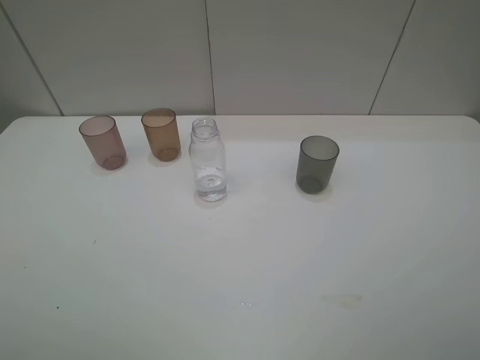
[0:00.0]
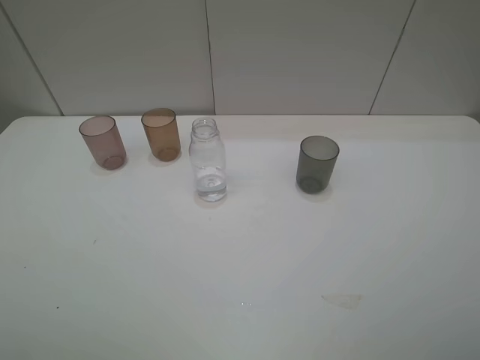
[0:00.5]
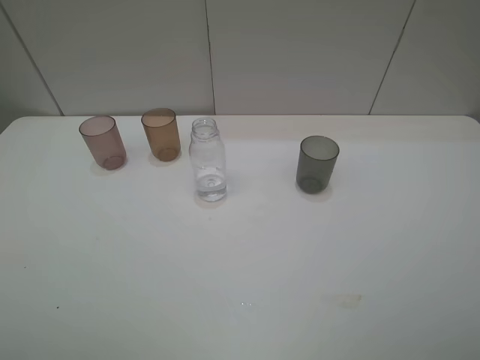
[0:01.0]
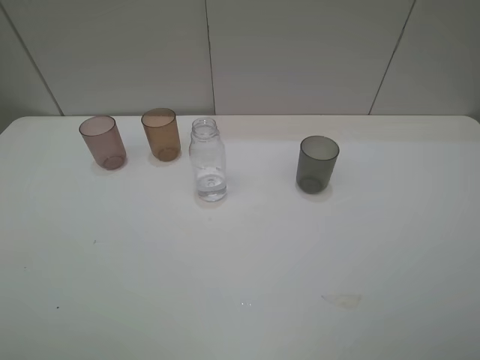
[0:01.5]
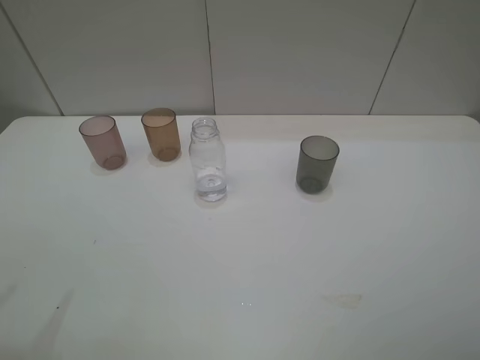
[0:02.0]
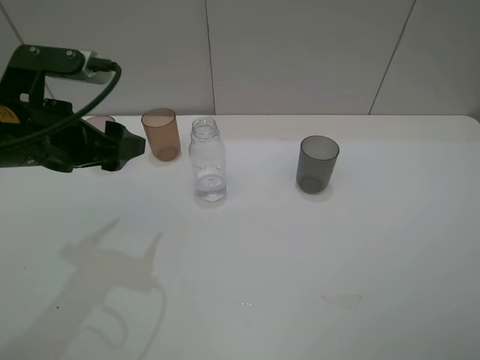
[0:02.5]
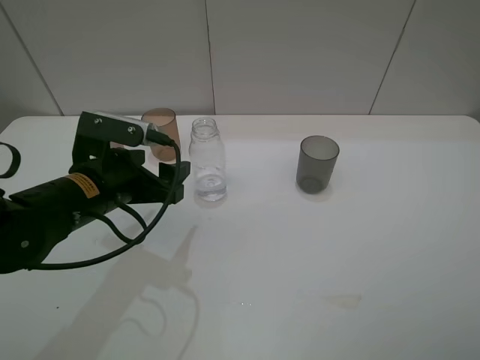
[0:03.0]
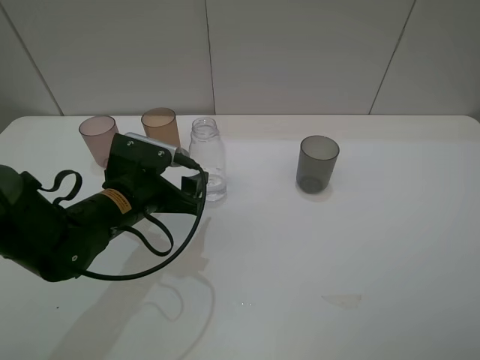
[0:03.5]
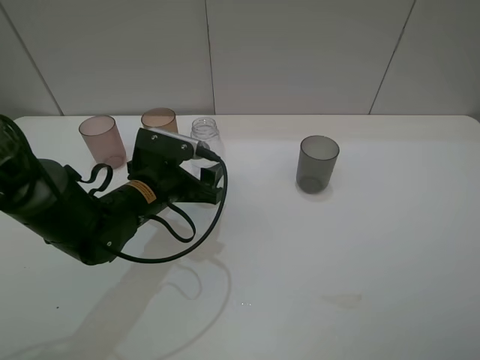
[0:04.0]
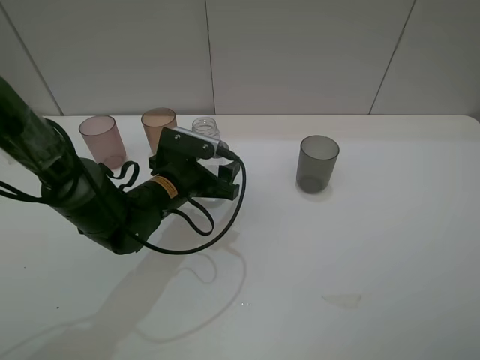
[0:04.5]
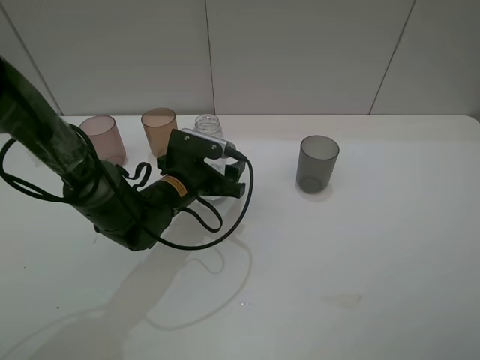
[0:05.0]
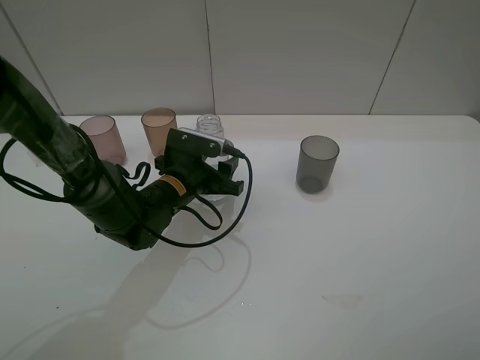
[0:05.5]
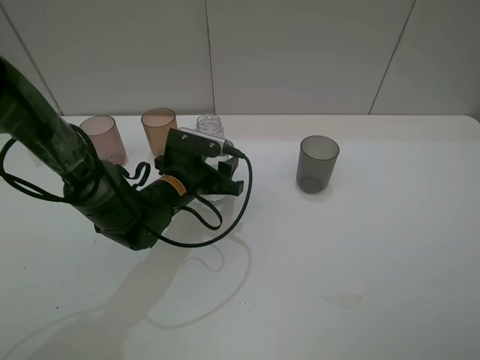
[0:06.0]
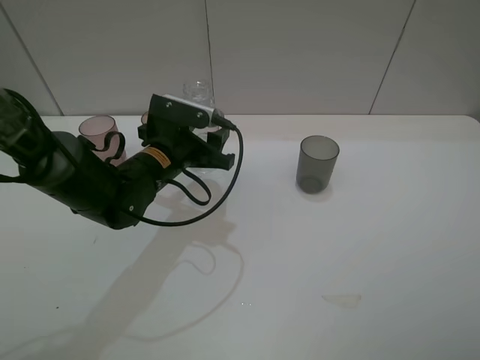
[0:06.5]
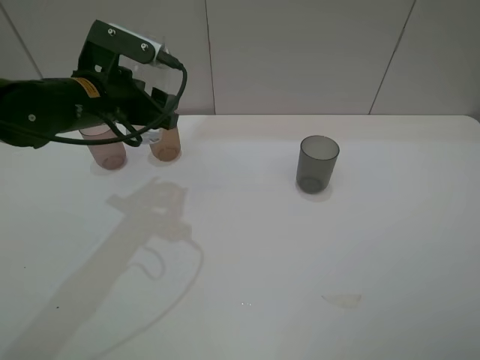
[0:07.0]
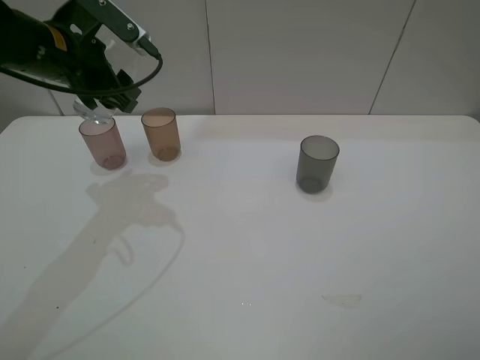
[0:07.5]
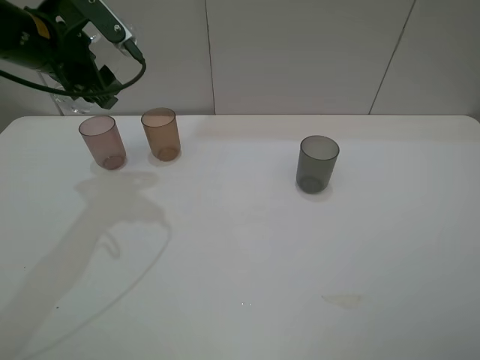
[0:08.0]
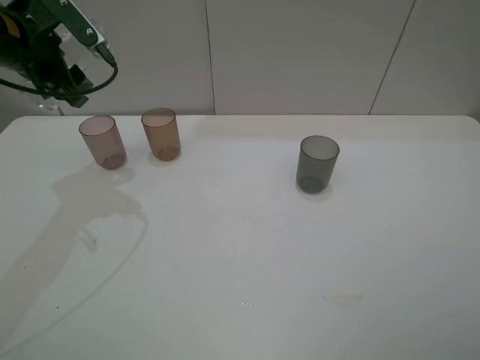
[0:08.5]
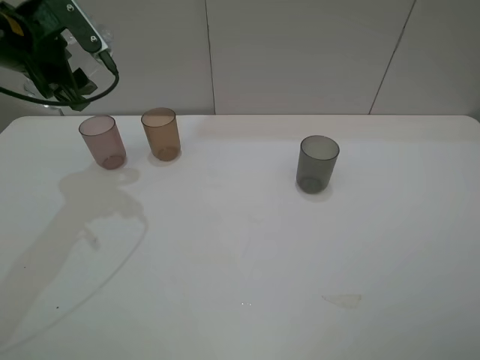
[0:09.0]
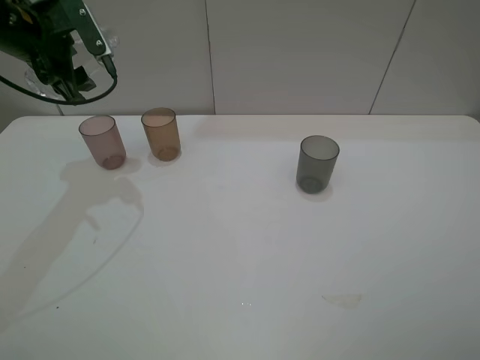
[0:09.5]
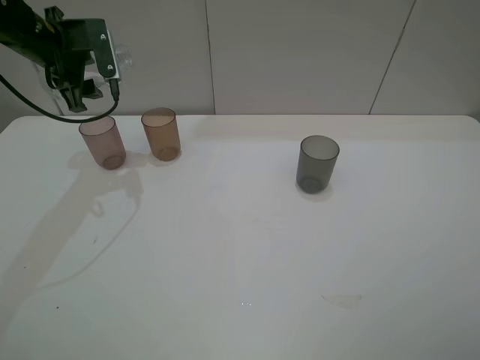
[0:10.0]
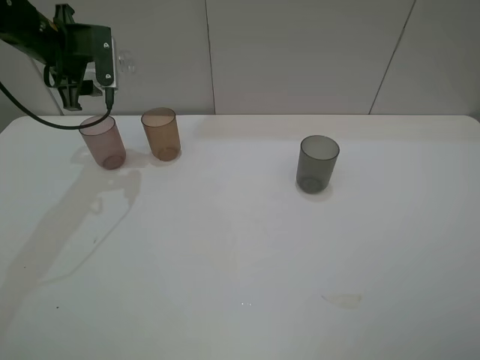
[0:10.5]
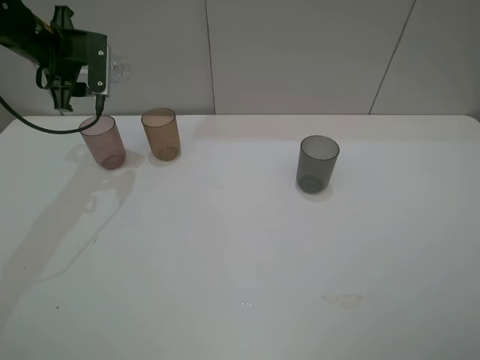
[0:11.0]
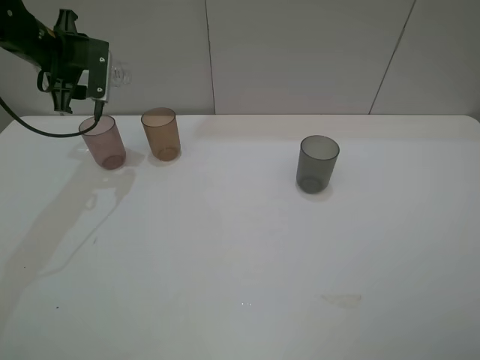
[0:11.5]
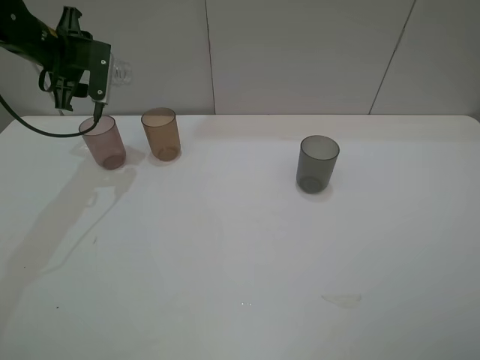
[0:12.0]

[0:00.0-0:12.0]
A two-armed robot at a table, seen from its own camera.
Task of the whole recording: pick up the bottle filled with water and pour water into the middle cup of the three cups.
Step, 0:00.0 to 0:05.0: Grasp the transparent bottle with the left gripper.
Step, 0:05.5 to 0:10.0: Pour water from transparent bottle to brown cup with the left gripper.
0:02.0 to 0:04.0: The left gripper is displaced downward, to the right and forward by some 30 cm.
0:04.0 to 0:06.0: The left gripper changes place by roughly 5 cm, and closes its fingers.
0:06.0 to 0:08.0: The left gripper goes roughly 25 cm upward and to the left.
0:08.0 to 0:10.0: The left gripper shifts roughly 5 cm forward.

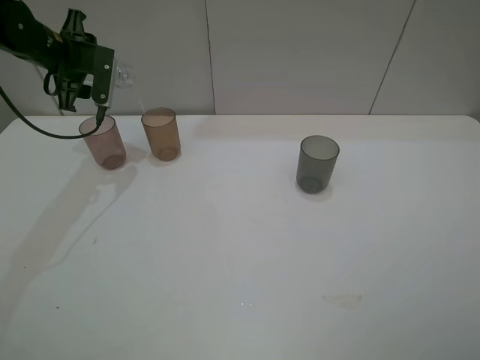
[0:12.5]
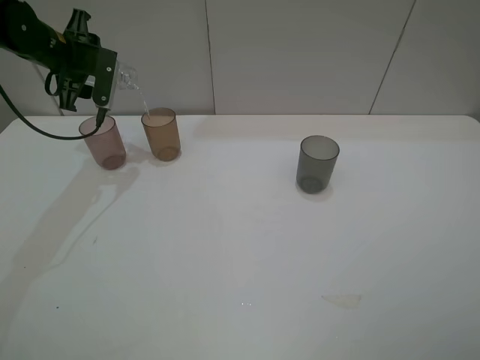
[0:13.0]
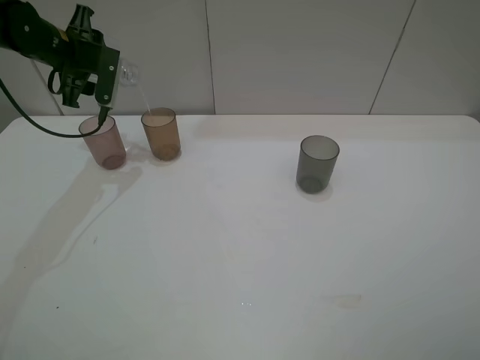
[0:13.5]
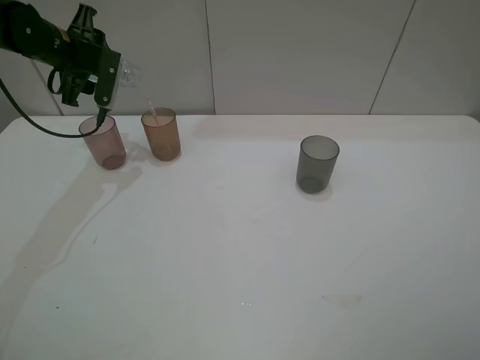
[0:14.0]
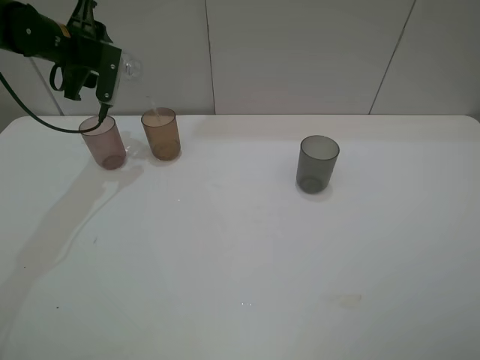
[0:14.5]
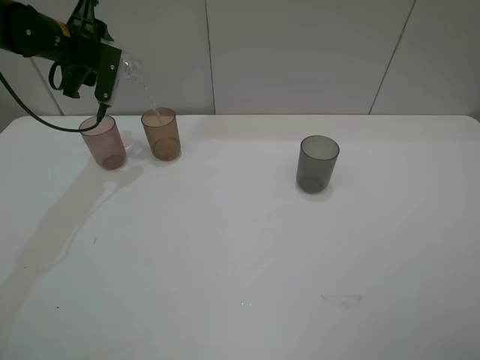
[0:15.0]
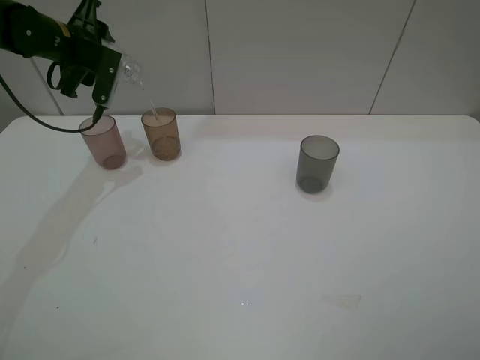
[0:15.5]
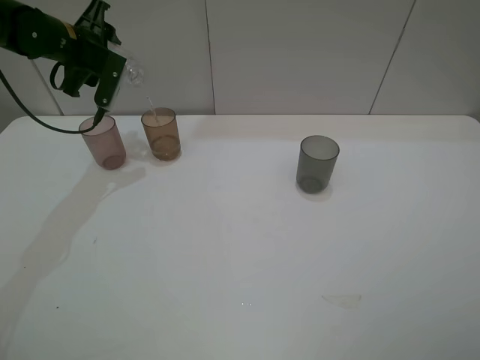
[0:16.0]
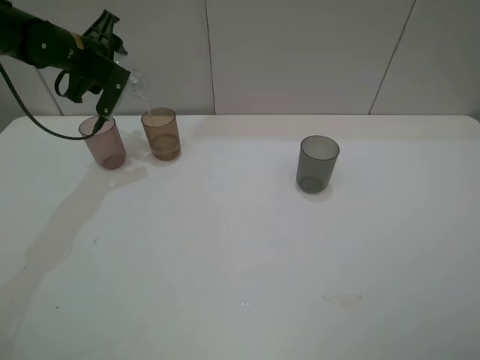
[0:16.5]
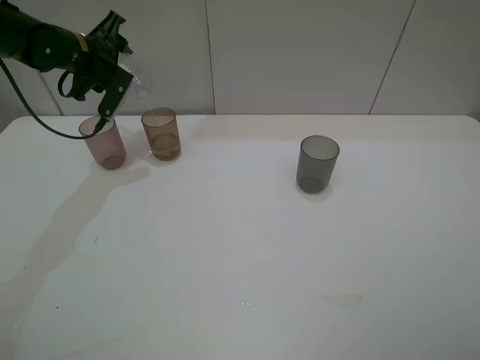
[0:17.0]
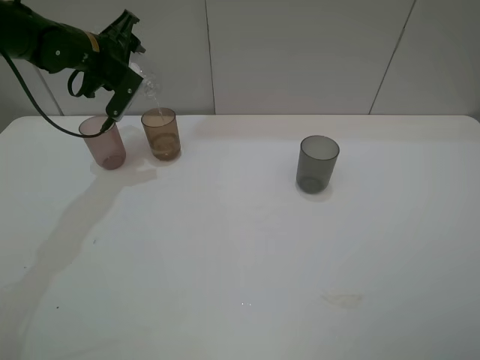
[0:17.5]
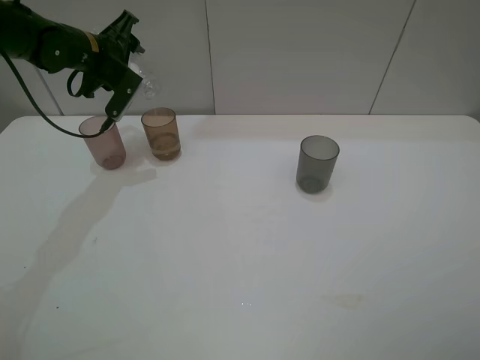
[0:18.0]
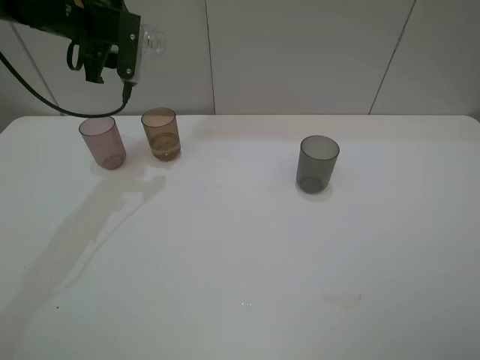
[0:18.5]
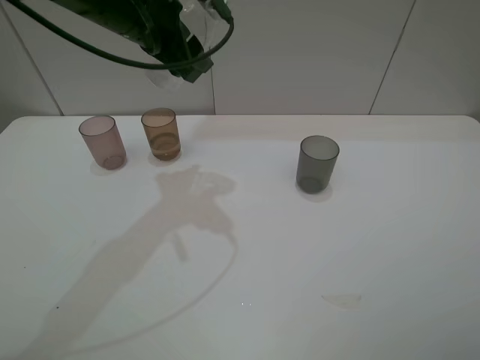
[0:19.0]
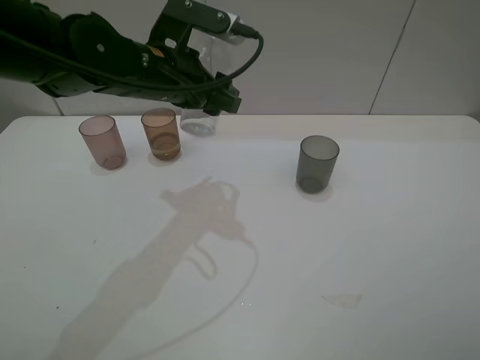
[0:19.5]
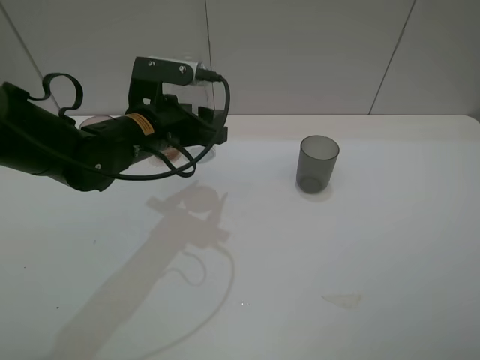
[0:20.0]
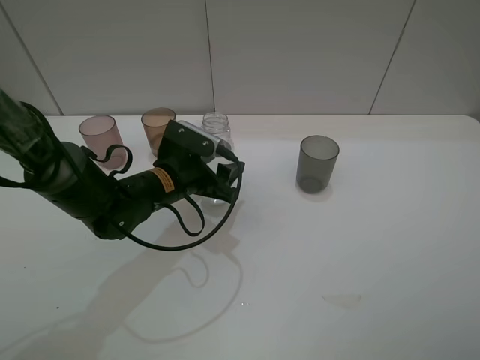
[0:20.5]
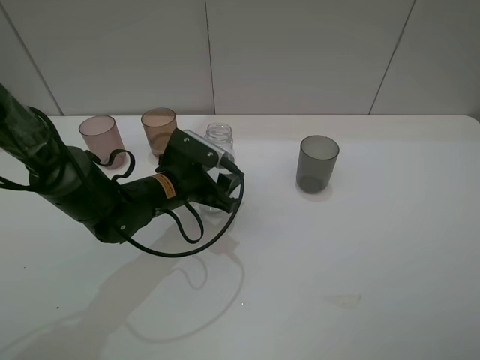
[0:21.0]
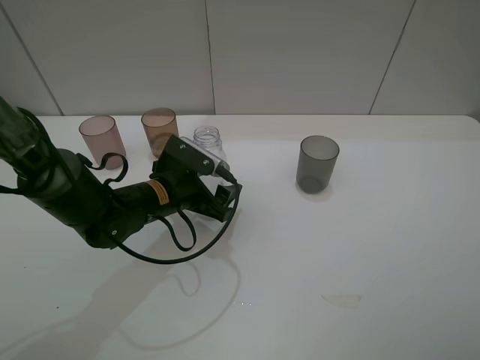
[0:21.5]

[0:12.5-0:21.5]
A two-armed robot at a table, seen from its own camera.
Task of the whole recording: pick up the bottle filled with water and pour water into the middle cup of the three cups.
0:12.5 to 0:14.5: The grippers move only a little.
0:14.5 to 0:17.0: There are only small adjustments of the grippers.
0:17.0 to 0:19.5: The left gripper travels to the right and backward by roughly 20 cm.
0:19.5 to 0:21.5: The left gripper is displaced downward by roughly 15 cm, and opens its fingers.

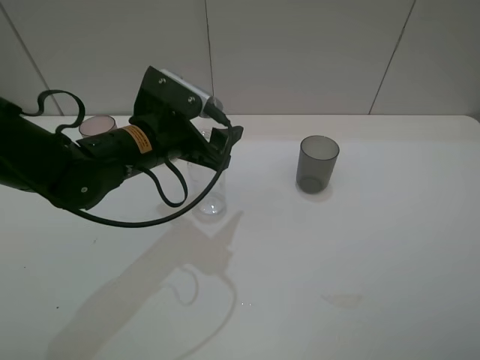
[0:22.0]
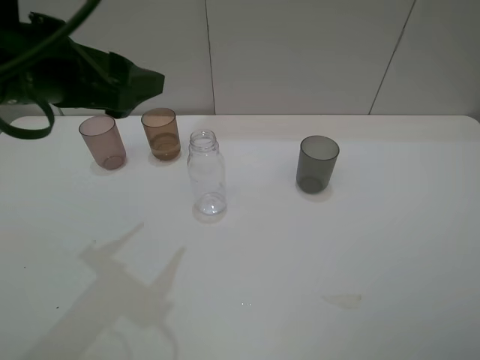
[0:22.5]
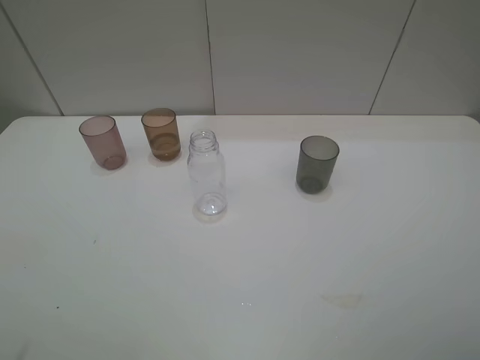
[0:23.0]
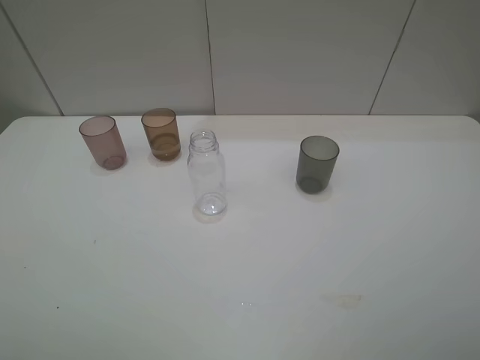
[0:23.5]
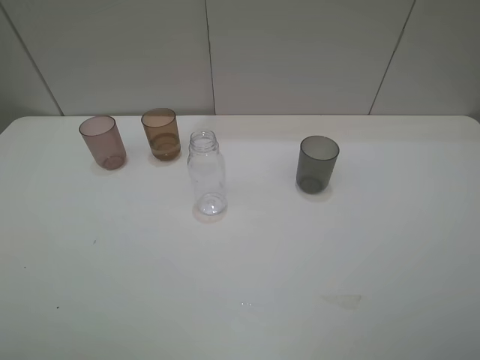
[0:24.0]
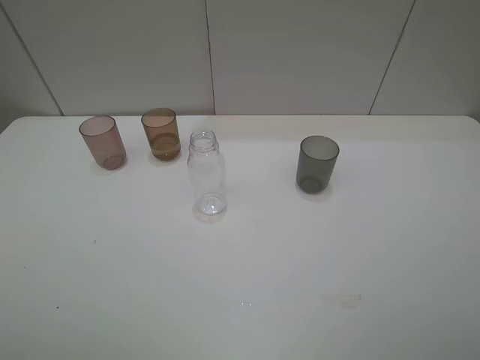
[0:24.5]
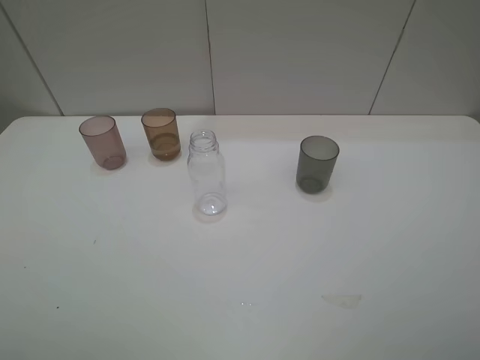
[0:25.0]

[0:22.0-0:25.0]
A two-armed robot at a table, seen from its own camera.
Task of the whole recording: pick up the bottle filled with water and pour water into the middle cup of the three cups.
0:22.0 to 0:23.5: The left gripper goes about 40 cm backward, to the left and upward.
